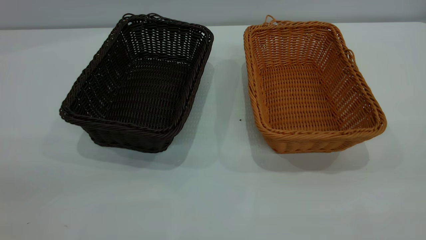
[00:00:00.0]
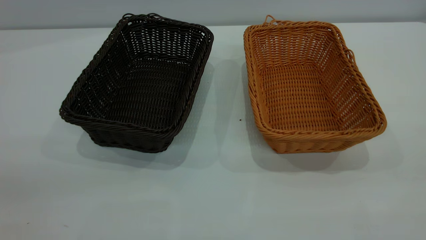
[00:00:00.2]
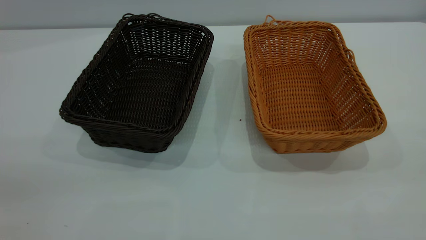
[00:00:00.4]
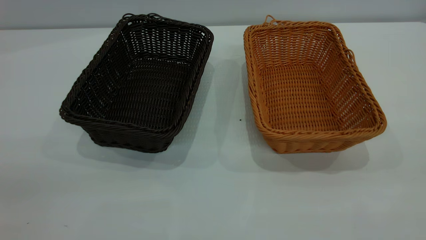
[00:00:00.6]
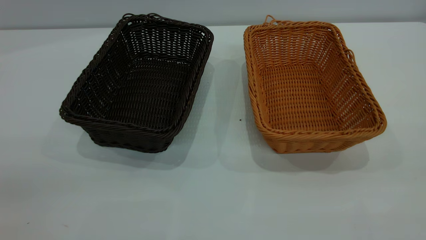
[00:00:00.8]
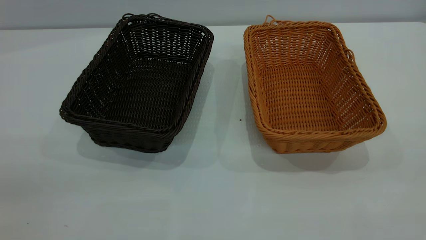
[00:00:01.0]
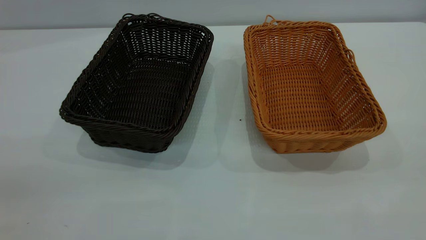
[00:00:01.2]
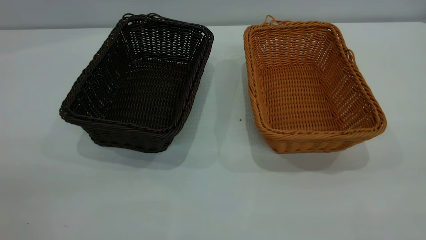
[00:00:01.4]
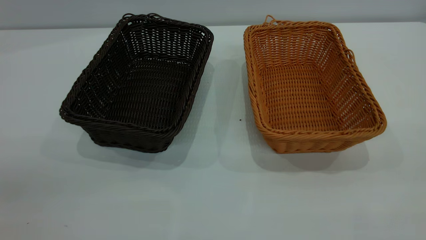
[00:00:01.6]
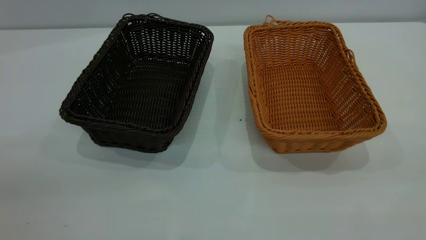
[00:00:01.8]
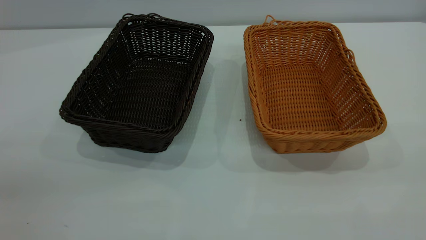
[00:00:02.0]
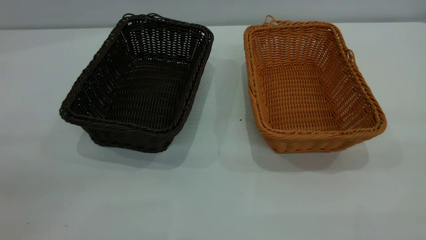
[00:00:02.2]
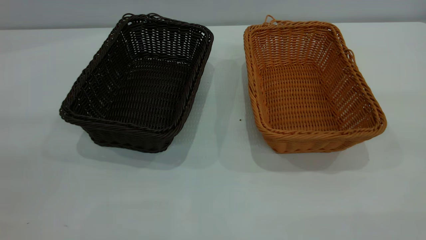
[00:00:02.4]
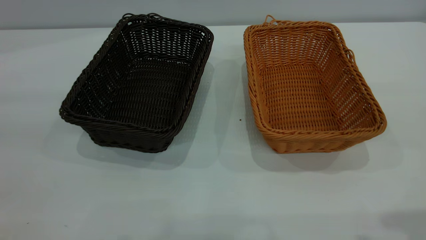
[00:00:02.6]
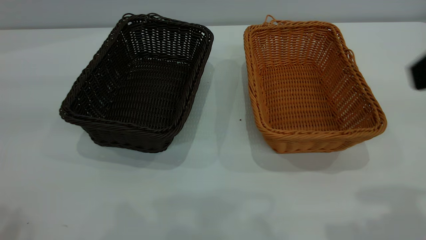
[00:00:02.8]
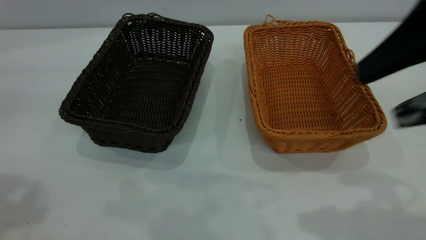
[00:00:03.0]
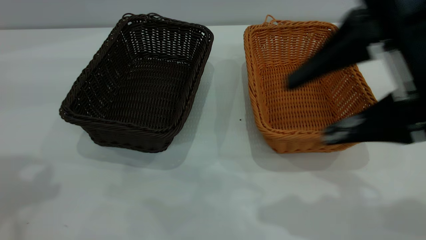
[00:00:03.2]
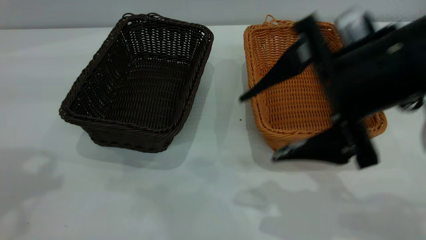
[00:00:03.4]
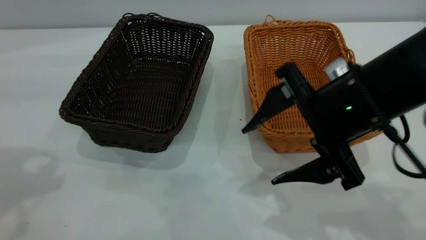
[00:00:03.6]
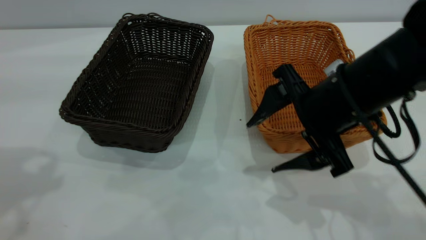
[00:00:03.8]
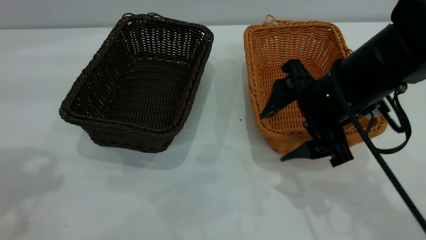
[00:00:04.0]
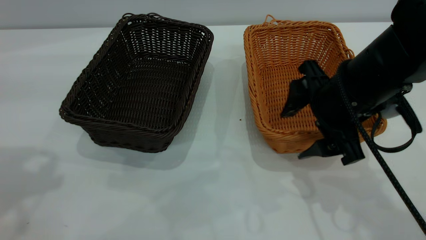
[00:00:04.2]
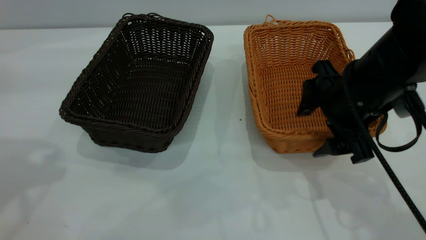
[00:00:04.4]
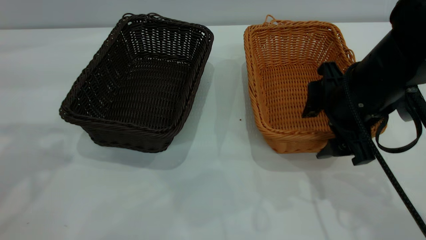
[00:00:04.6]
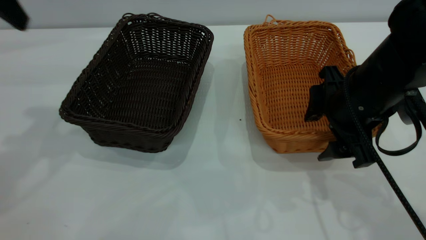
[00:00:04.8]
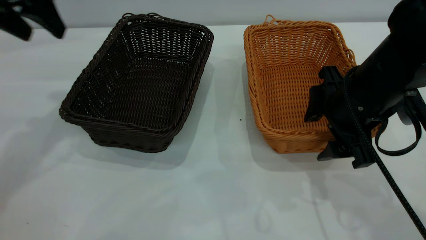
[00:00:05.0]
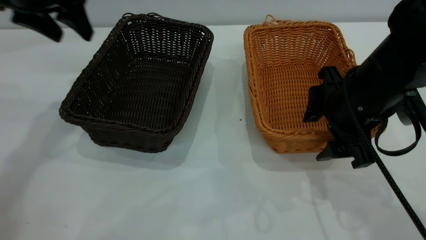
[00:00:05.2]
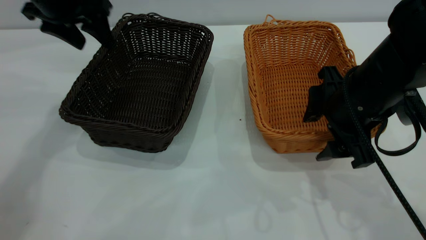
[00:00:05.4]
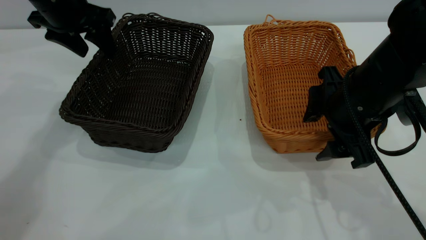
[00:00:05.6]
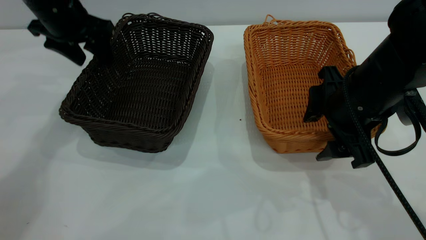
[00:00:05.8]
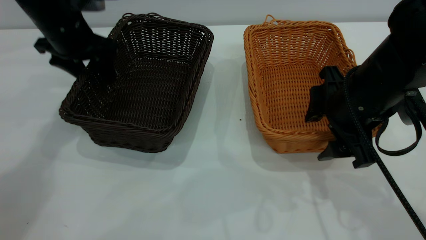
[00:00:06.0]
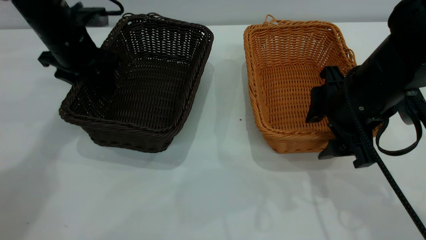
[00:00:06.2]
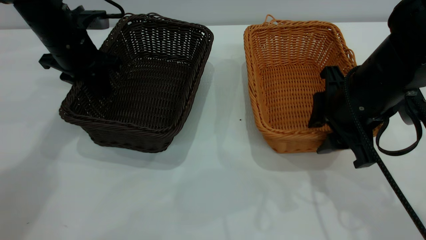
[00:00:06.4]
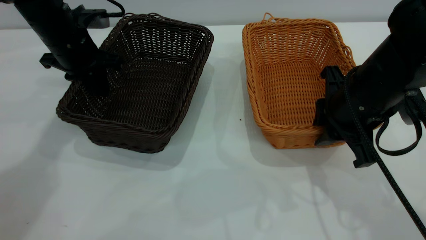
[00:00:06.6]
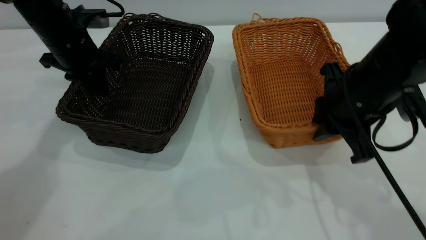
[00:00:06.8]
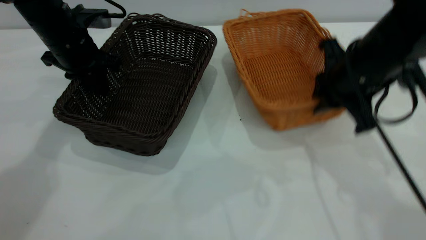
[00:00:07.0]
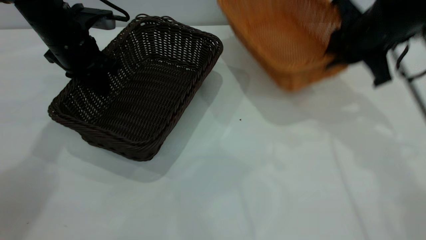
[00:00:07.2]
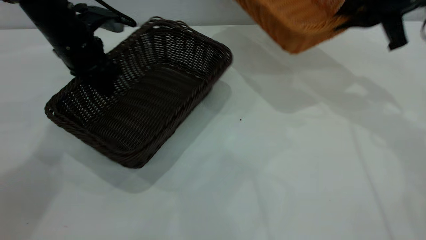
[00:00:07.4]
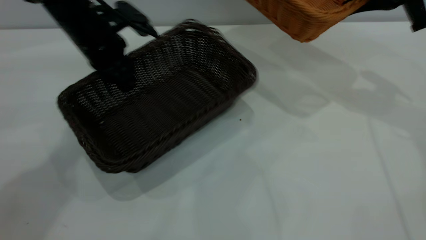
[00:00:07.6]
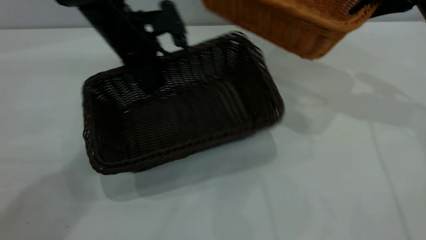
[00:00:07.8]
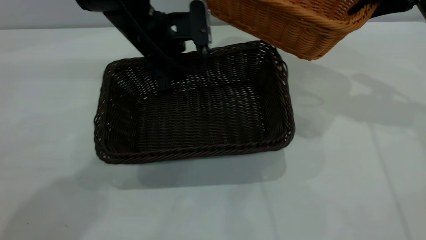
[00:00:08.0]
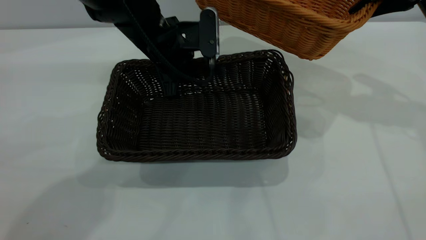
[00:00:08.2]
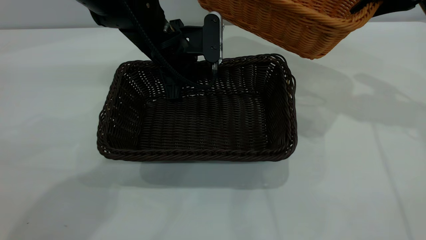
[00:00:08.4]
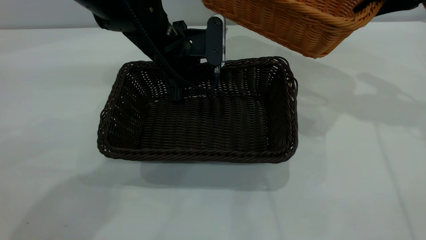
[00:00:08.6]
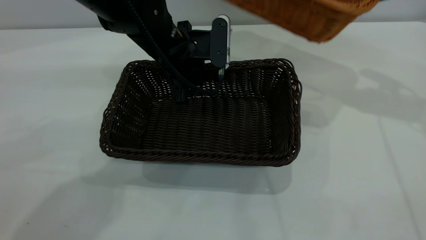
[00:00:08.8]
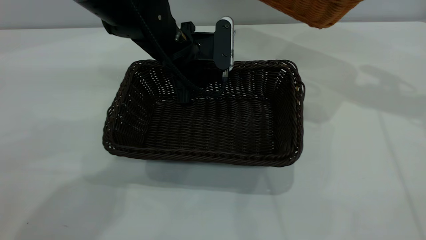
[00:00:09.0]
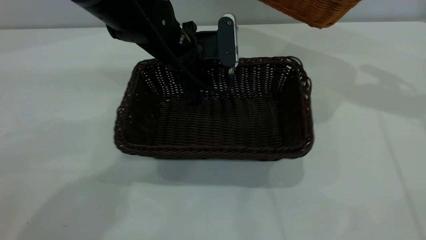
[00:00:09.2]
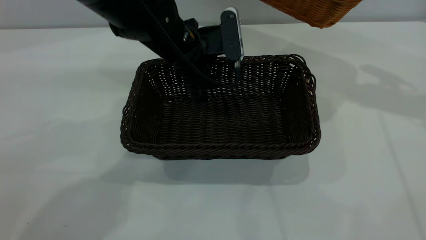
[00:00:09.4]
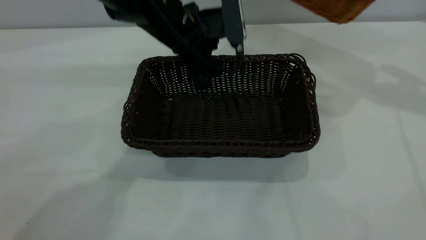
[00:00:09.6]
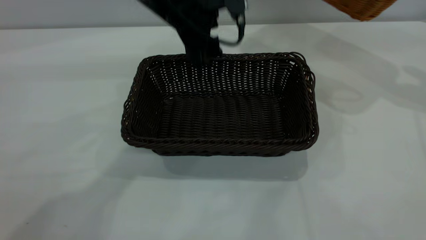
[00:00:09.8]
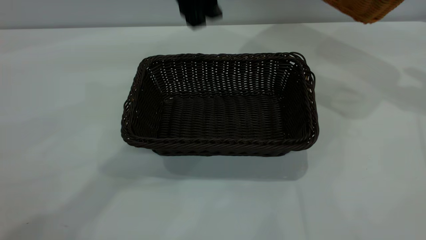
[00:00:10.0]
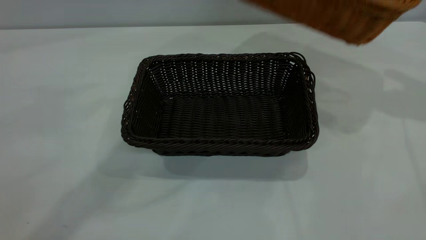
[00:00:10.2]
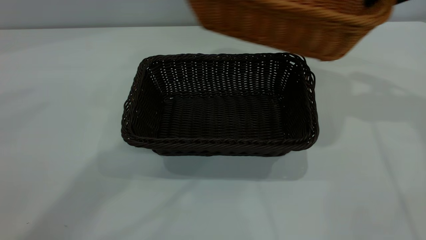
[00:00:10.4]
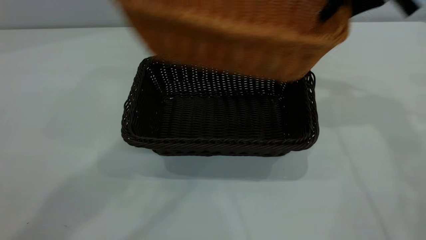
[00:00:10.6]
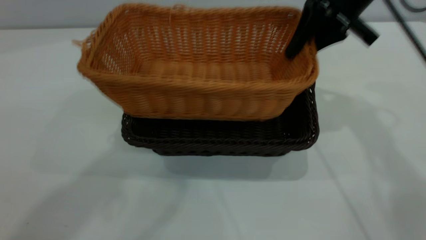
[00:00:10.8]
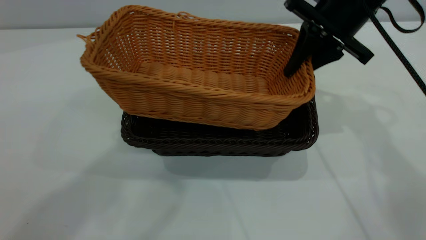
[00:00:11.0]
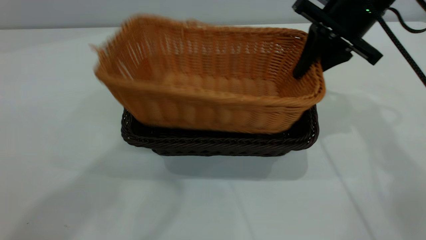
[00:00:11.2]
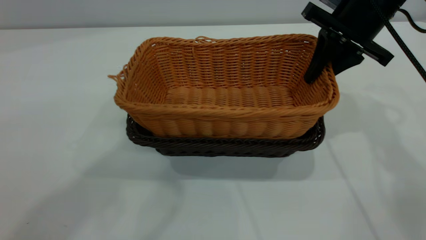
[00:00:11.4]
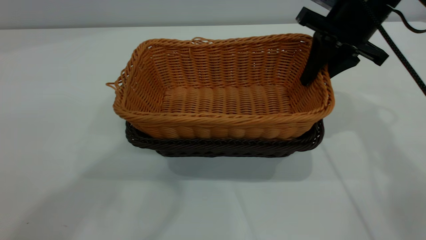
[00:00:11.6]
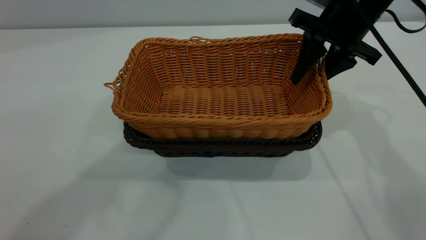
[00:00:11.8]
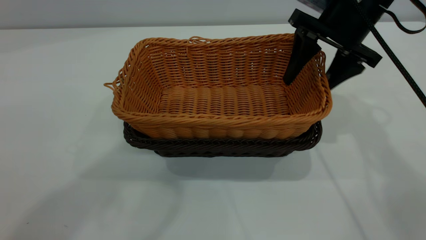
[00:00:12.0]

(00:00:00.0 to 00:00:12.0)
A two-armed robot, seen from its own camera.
Task of the whole recording: the left gripper grasp the black basket and place it in the center of the table, the right gripper grasp the brown basket and place it inside the black one.
Step, 00:00:00.0 - 00:00:07.2: Pick up the light basket with the right gripper.
Step, 00:00:07.6 - 00:00:09.8: Move the dark basket to the center of view.
00:00:00.0 - 00:00:01.6: Neither gripper changes place.
00:00:01.6 - 00:00:03.0: The right gripper moves forward, about 20 cm.
00:00:03.0 - 00:00:04.4: The right gripper travels downward and forward by about 15 cm. The left gripper goes about 5 cm forward.
00:00:04.4 - 00:00:06.0: The left gripper shifts about 25 cm downward and forward.
00:00:06.0 - 00:00:07.6: The right gripper goes approximately 20 cm forward, upward and to the right, and closes its fingers, while the left gripper travels to the right by approximately 5 cm, and closes its fingers.
00:00:07.6 - 00:00:09.0: The left gripper heads to the right, covering some 10 cm, and opens.
00:00:09.0 - 00:00:10.4: The left gripper shifts about 35 cm upward, and opens its fingers. The right gripper reaches roughly 5 cm to the right, then returns.
00:00:10.4 - 00:00:12.0: The left gripper moves upward and backward, approximately 10 cm. The right gripper travels to the left and downward by about 10 cm, and opens.

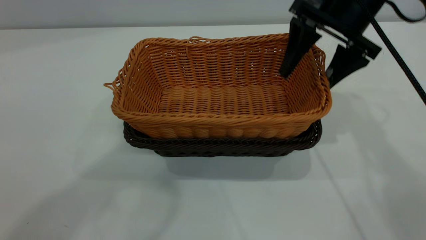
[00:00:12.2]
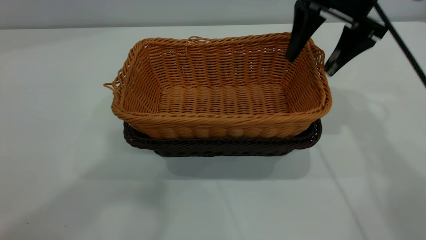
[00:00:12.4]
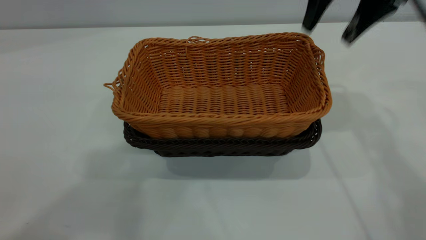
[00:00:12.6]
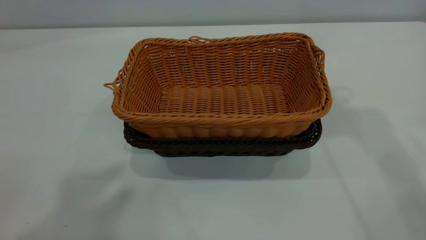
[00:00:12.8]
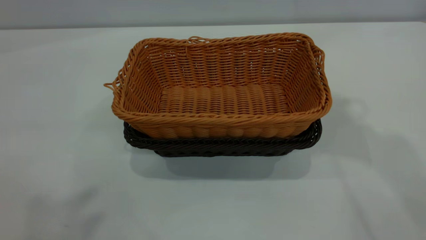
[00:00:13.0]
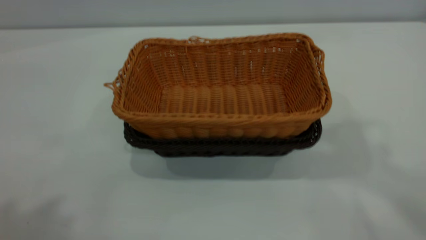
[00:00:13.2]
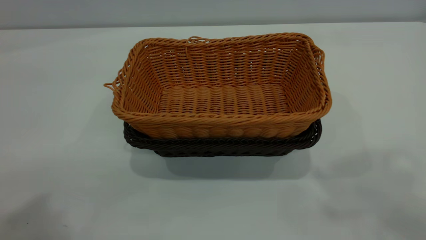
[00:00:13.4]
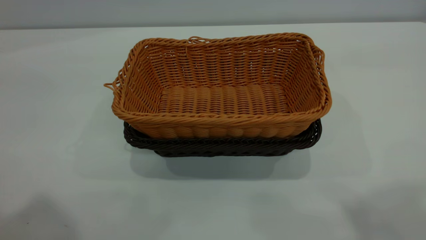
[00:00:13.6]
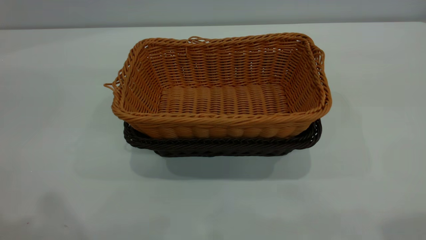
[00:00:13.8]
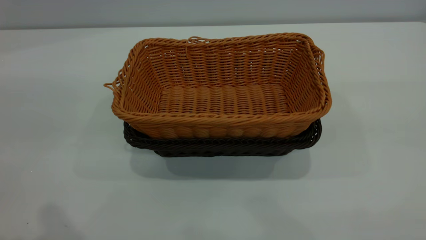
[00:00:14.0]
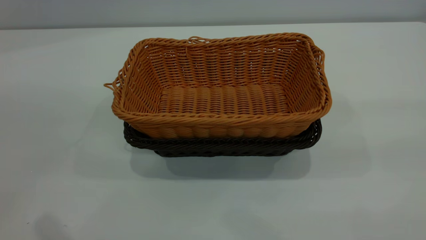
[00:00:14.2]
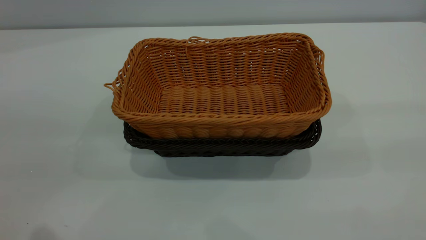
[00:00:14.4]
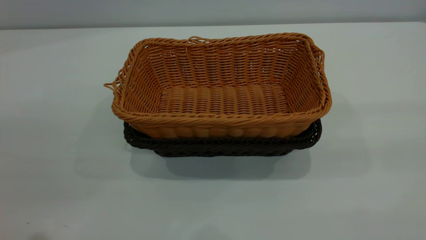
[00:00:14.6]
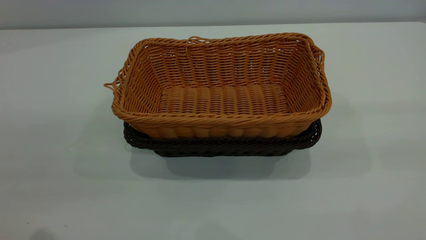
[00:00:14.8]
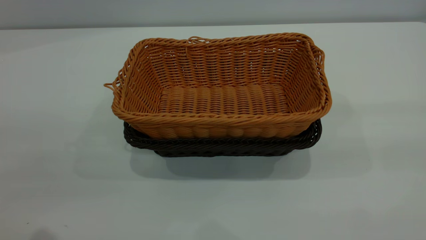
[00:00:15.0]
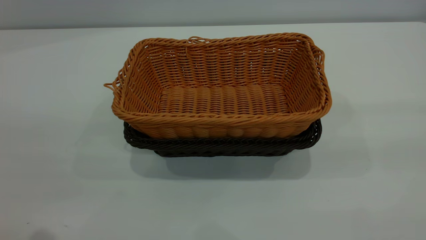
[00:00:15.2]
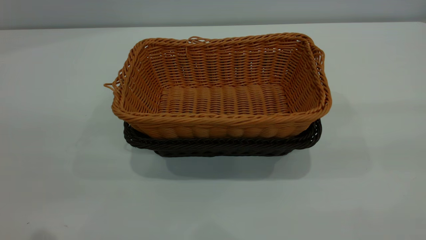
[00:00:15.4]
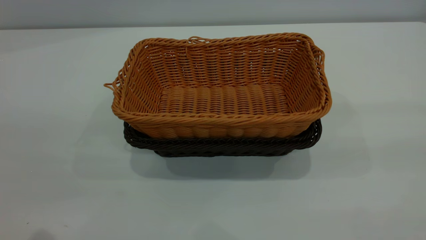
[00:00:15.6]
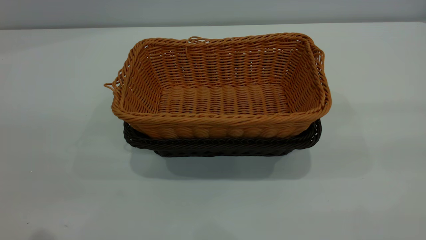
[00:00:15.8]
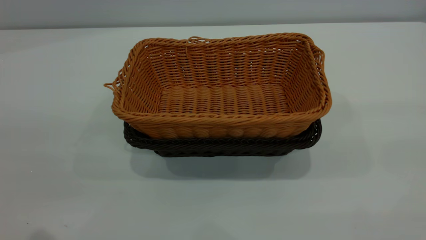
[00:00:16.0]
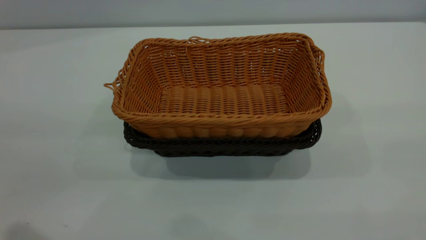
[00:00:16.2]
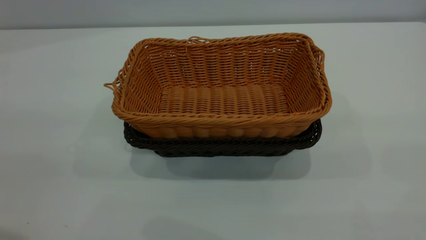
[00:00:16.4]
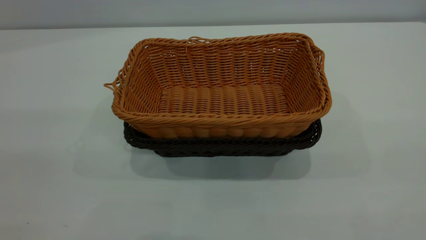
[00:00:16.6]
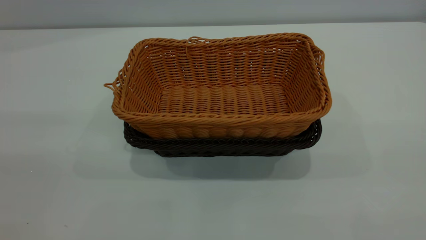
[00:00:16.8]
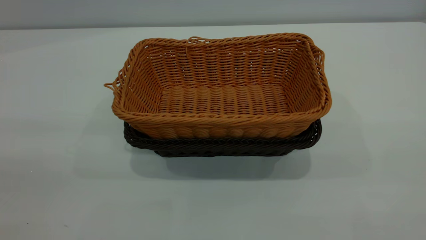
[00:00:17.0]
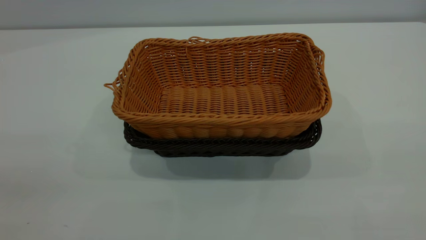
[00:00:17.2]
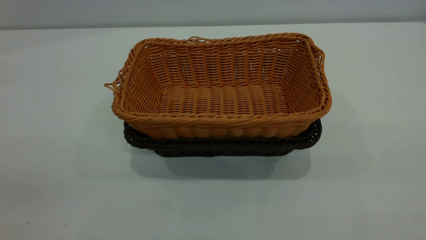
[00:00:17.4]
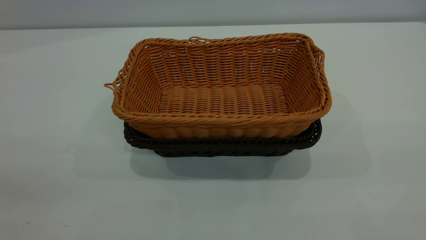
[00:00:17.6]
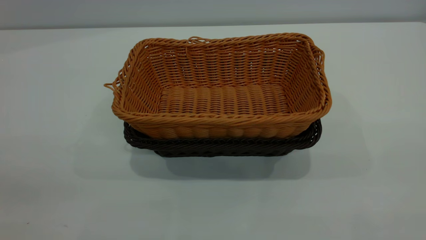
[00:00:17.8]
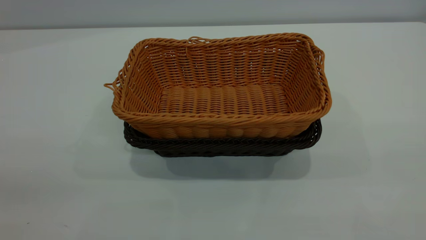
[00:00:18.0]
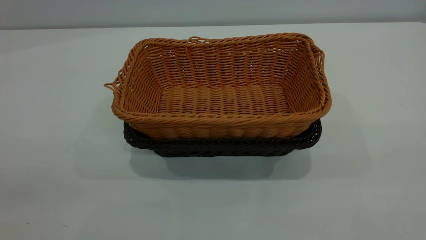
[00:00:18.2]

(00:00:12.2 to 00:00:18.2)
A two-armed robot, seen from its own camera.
Task of the whole recording: the left gripper grasp the black basket and place it in the center of the table, the right gripper grasp the brown basket and place it inside the black one.
00:00:12.2 - 00:00:13.8: The right gripper is displaced backward and upward by roughly 35 cm.
